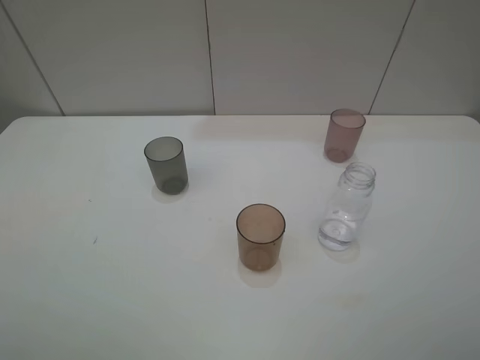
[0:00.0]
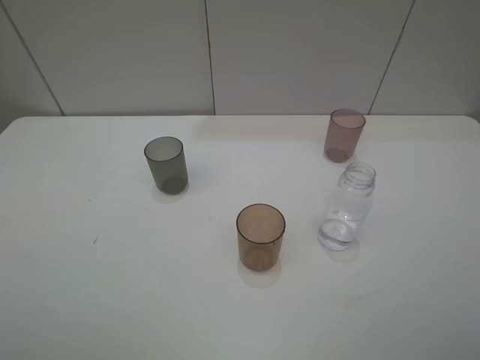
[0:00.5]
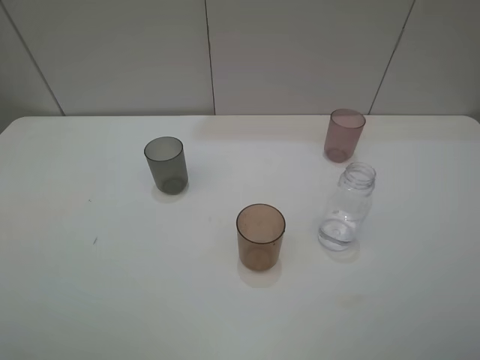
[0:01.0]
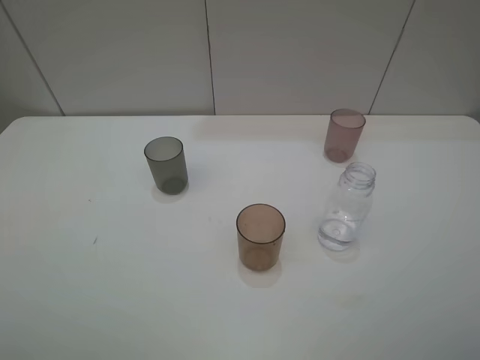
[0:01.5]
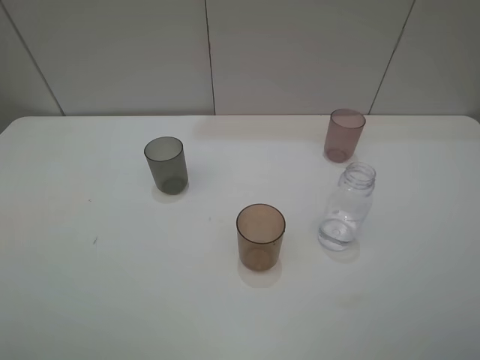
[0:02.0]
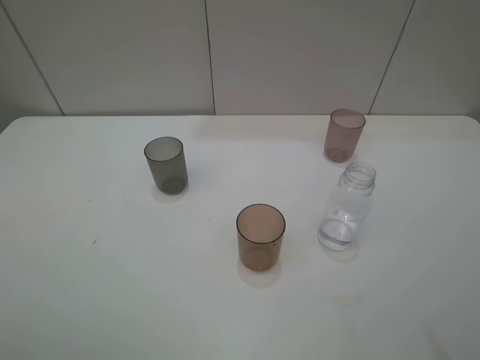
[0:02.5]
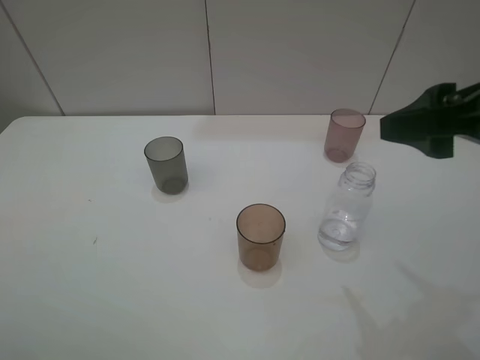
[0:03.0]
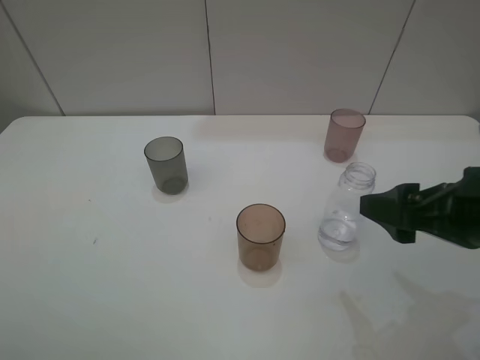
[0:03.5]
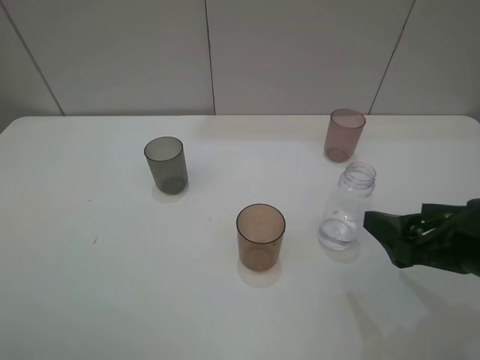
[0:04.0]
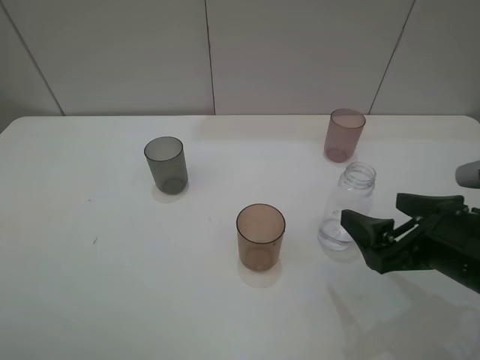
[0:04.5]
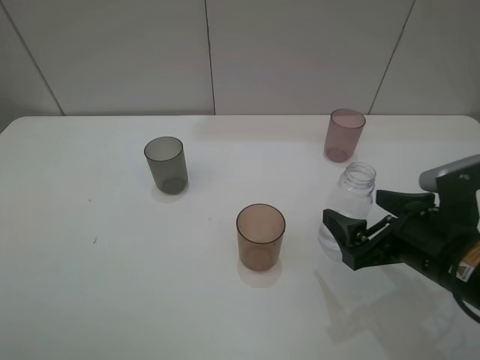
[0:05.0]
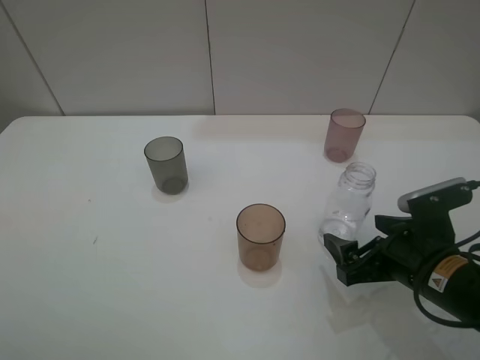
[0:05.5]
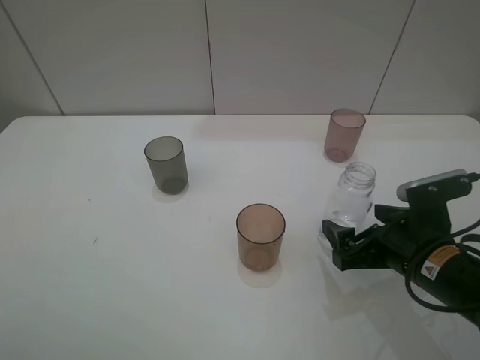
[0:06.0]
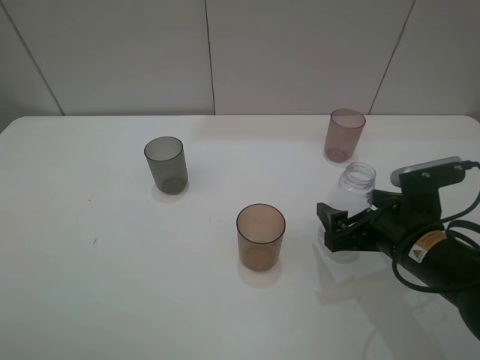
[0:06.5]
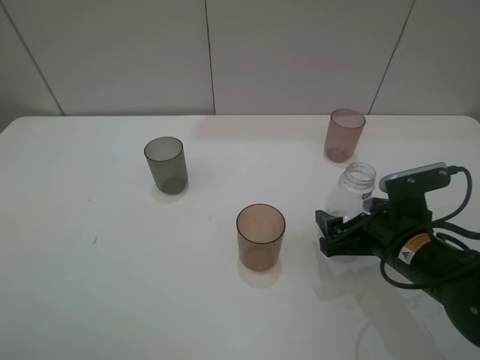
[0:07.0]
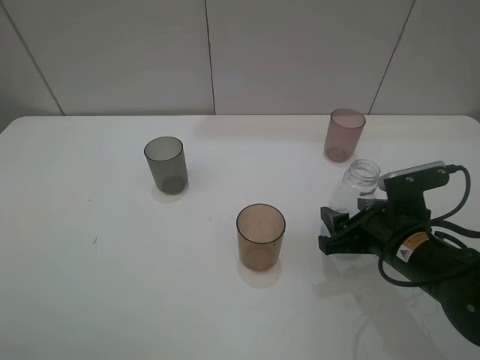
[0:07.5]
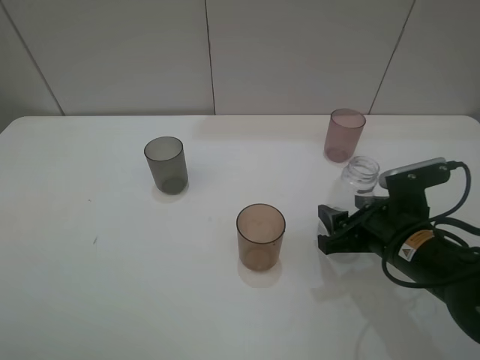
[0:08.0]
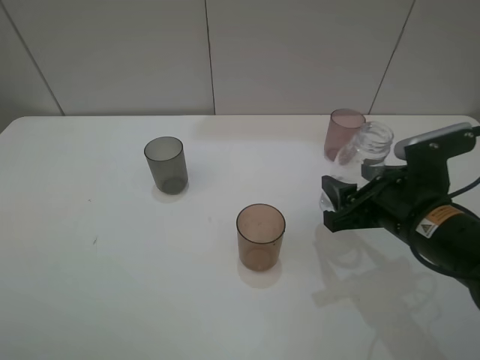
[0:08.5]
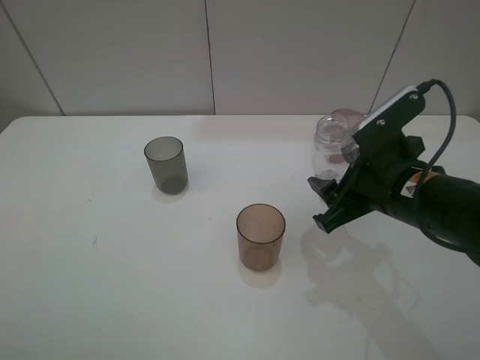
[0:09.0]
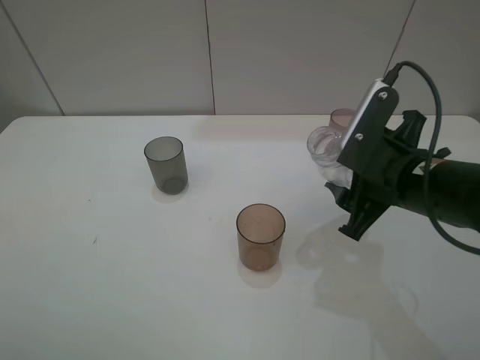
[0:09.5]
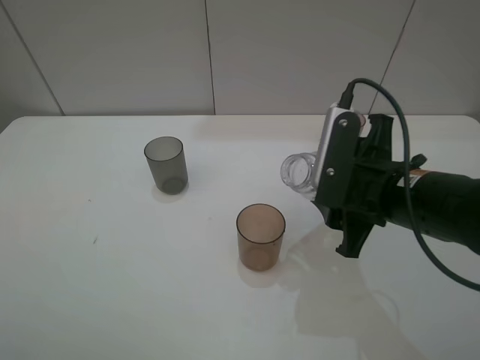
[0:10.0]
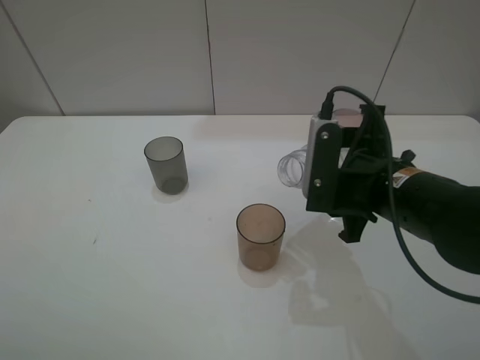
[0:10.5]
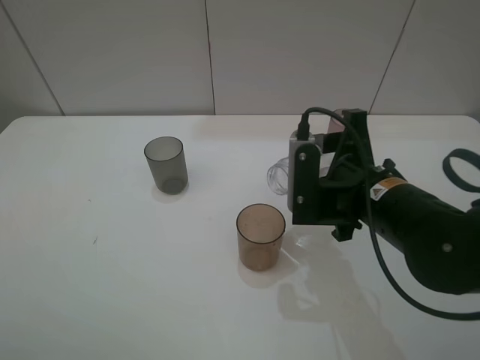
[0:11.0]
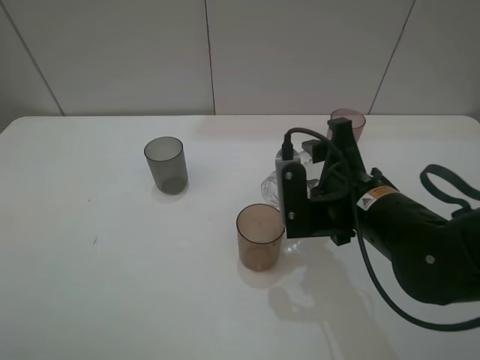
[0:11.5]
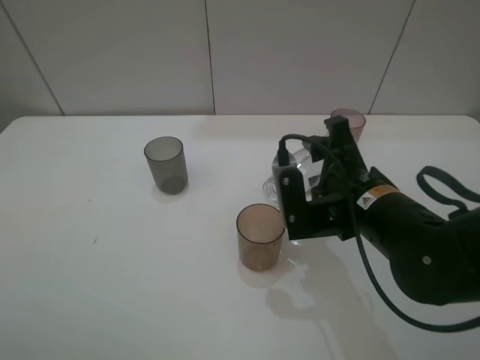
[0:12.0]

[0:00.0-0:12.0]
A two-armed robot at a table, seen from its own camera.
Task of the whole recording: pick up the bottle filled with water and pour water into the middle cup of the three cups.
Step, 0:00.0 to 0:07.0: Grasp the transparent bottle with the right gripper.
0:00.0 to 0:02.0: Both grippers stay about where they are.
0:02.0 to 0:04.0: The right gripper is displaced forward, downward and to the left by about 20 cm.
0:04.0 to 0:06.0: The right gripper moves downward, approximately 10 cm.
0:06.0 to 0:08.0: The right gripper closes its fingers.
0:08.0 to 0:10.0: The right gripper heads upward, covering roughly 10 cm.

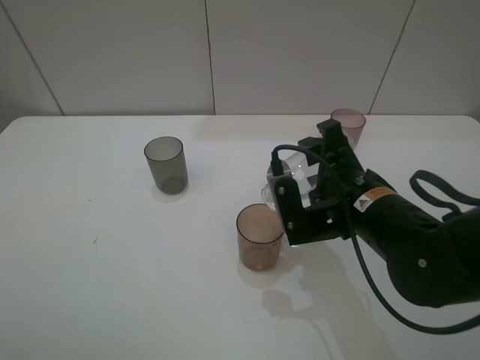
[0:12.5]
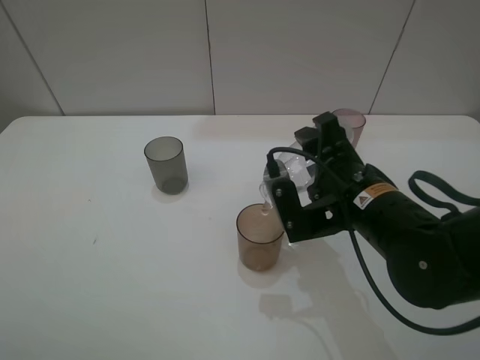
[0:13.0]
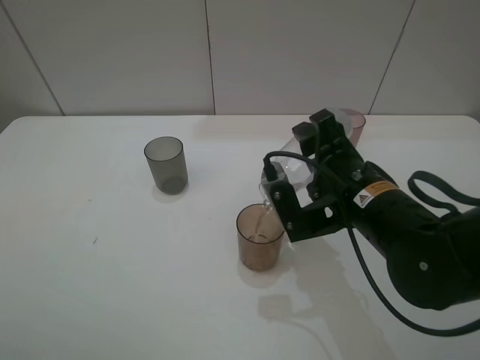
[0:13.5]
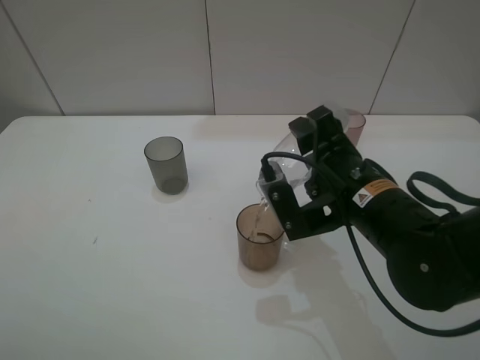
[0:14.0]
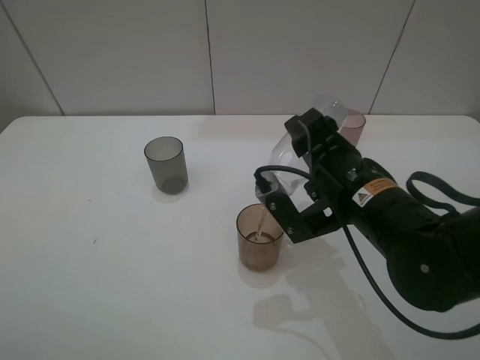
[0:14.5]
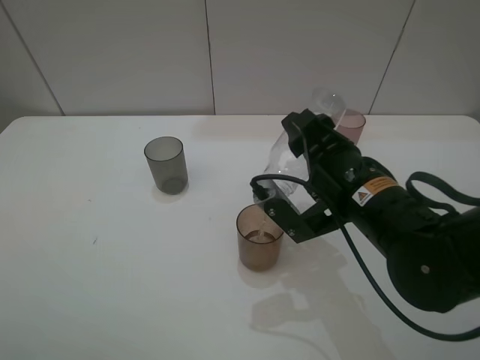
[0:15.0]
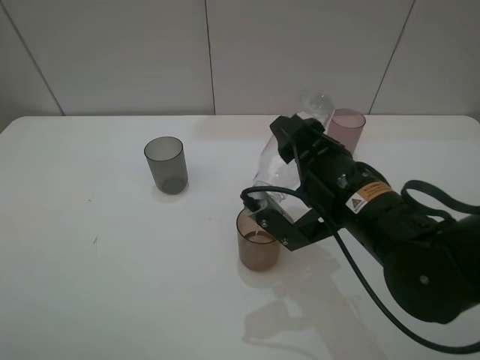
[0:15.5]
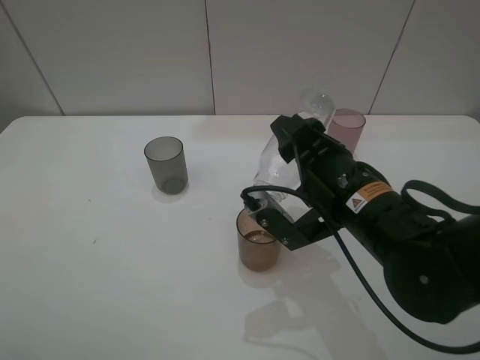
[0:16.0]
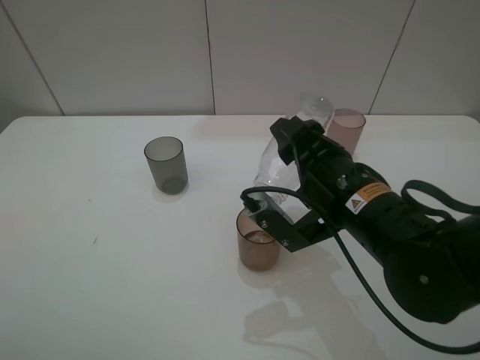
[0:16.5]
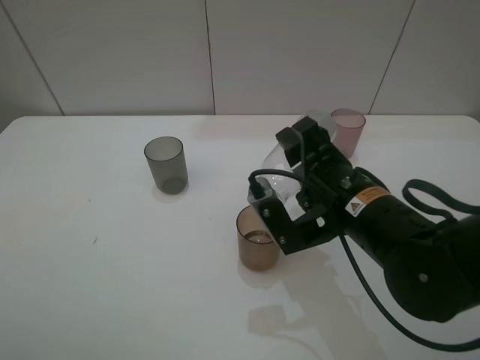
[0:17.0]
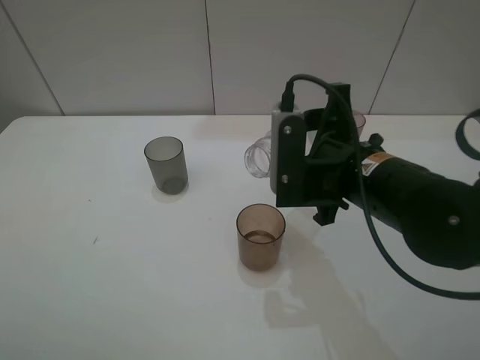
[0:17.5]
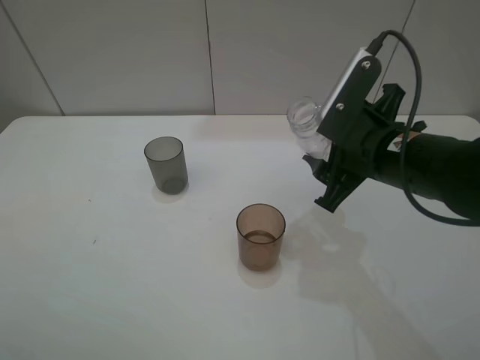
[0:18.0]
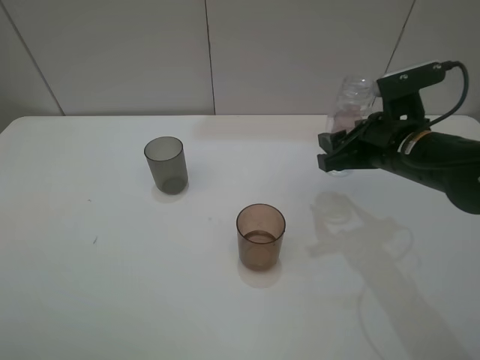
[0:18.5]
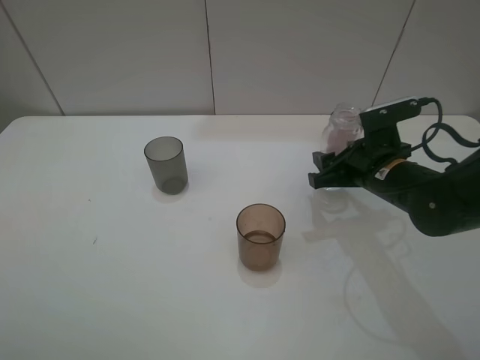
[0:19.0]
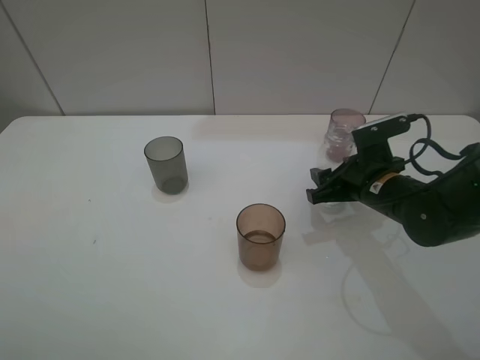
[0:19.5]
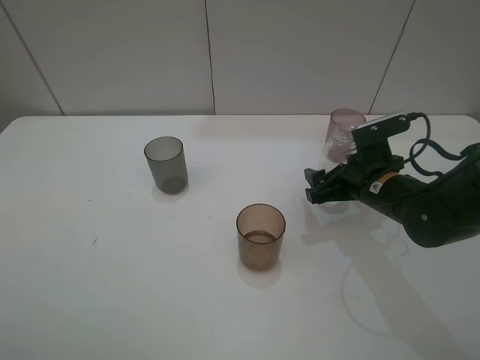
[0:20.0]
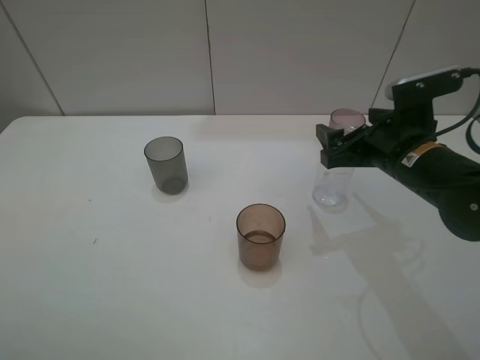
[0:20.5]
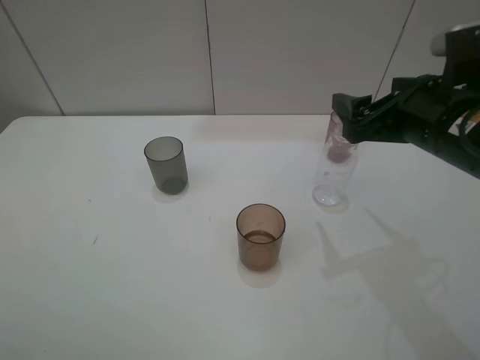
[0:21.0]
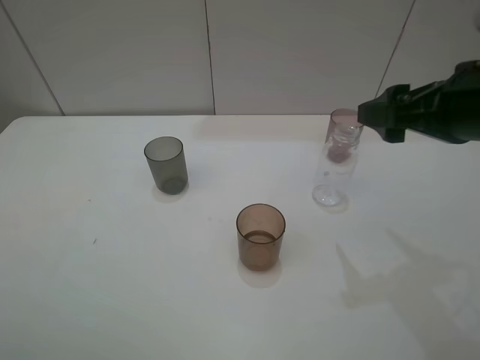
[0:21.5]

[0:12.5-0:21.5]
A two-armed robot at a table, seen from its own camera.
Task of the whole recording: pick up the bottle filled with water and pour water into the middle cup of the three cups.
Step, 0:12.5 to 0:17.5: Pour water from transparent bottle to red cup with the right gripper.
Step, 0:18.0 to 0:21.0: Place the transparent bottle with the right gripper.
0:12.5 to 0:14.5: The grippers move only a little.
0:14.5 to 0:17.0: There are only small adjustments of the grippers.
0:17.0 to 0:19.5: The right gripper goes roughly 15 cm to the right, forward and downward.
0:19.5 to 0:21.5: The right gripper moves upward, about 20 cm, and opens its fingers.

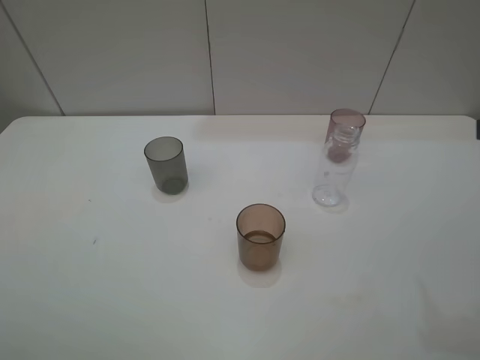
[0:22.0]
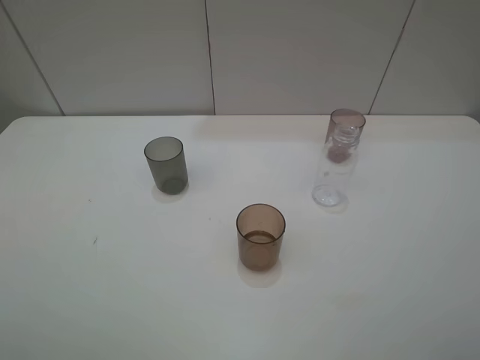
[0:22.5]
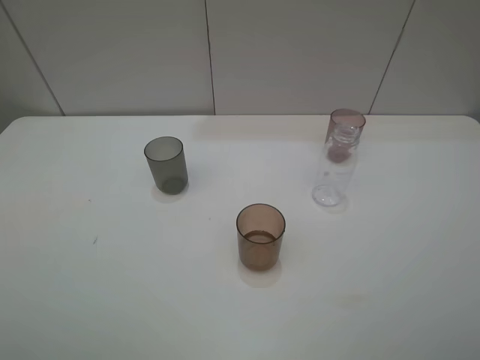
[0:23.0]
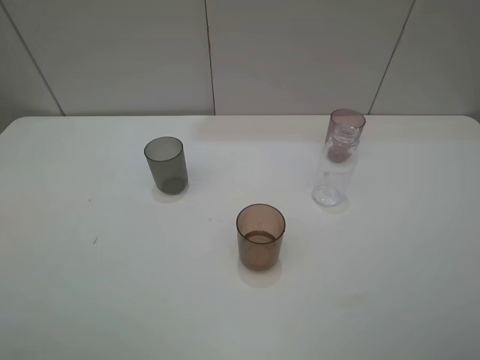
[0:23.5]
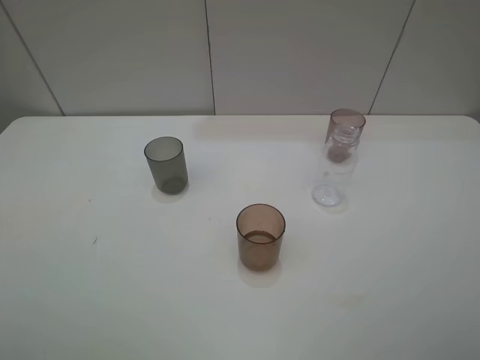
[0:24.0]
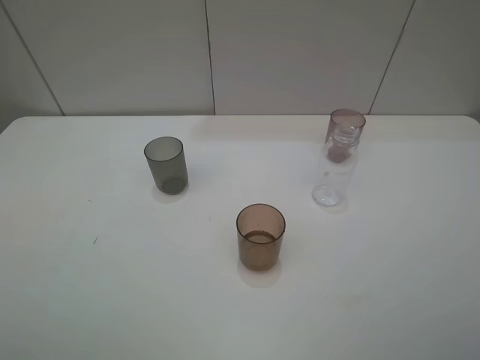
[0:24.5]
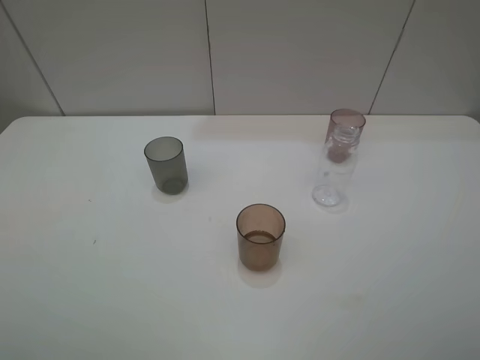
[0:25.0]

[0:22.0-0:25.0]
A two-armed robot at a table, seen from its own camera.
Task of the whole recording: pick up the bottle filled with water and pour water into the middle cup of the three cups.
0:23.5 to 0:25.0: The two grippers keep their place.

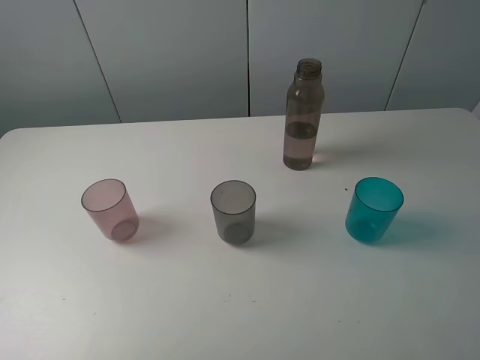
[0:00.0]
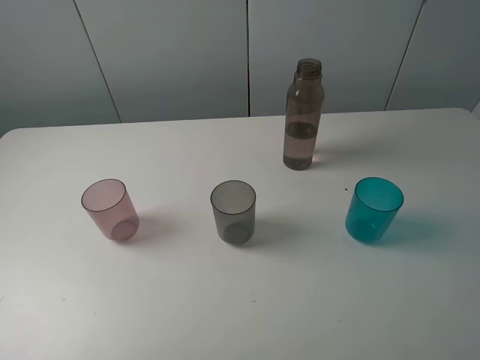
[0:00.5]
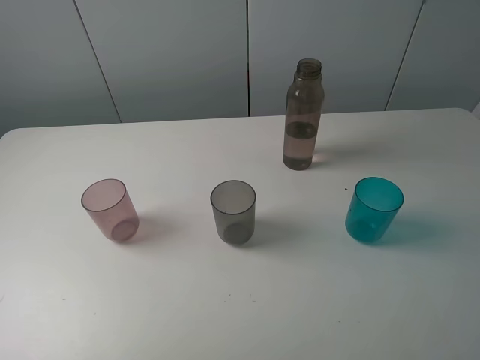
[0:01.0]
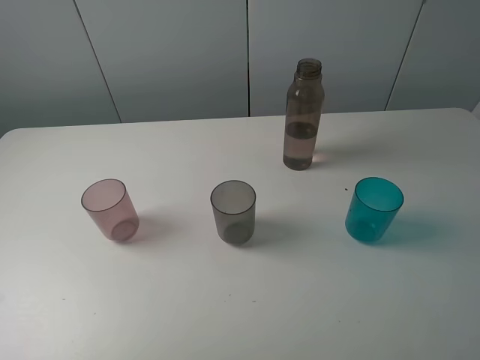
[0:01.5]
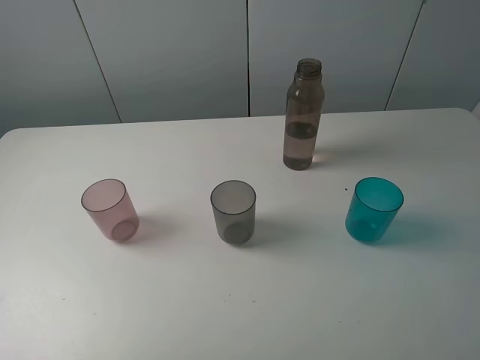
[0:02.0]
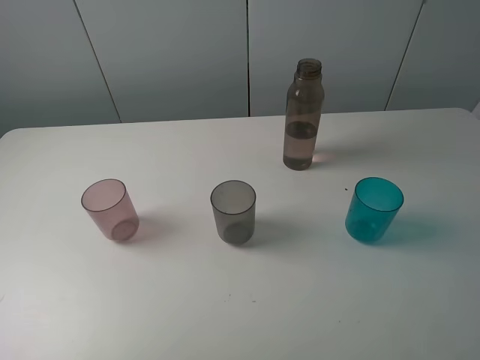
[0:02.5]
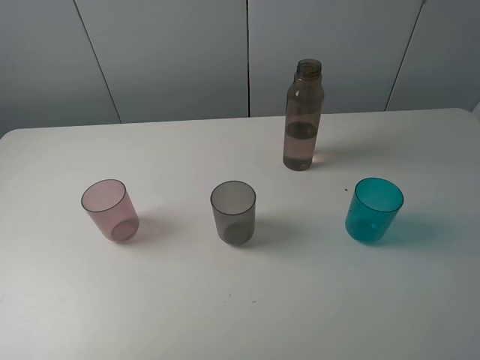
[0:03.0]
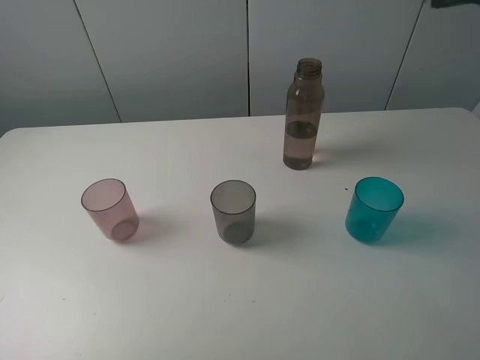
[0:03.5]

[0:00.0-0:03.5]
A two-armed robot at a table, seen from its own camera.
Task of the whole recording: pick up the bottle filled with water and pour water into the middle cup of the three cups.
0:00.0 to 0:02.0: Both grippers stay about where they are.
